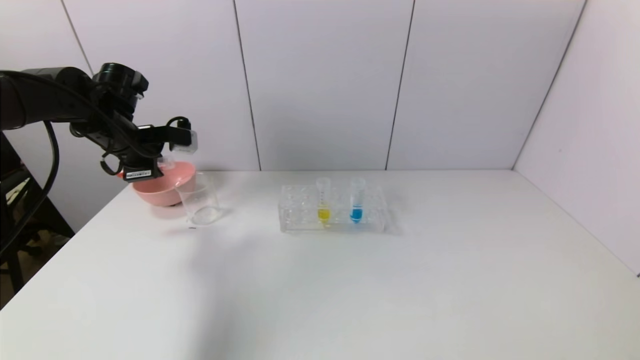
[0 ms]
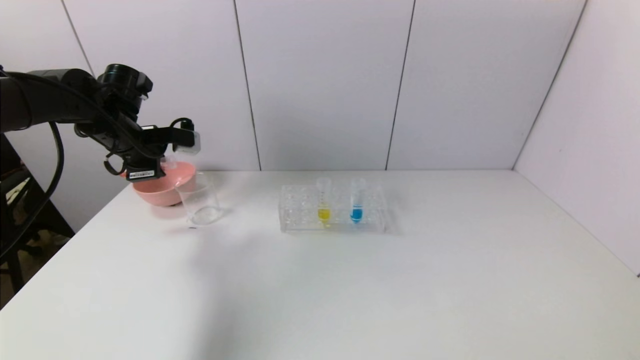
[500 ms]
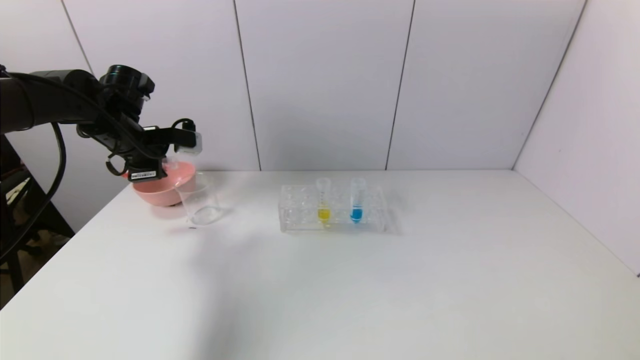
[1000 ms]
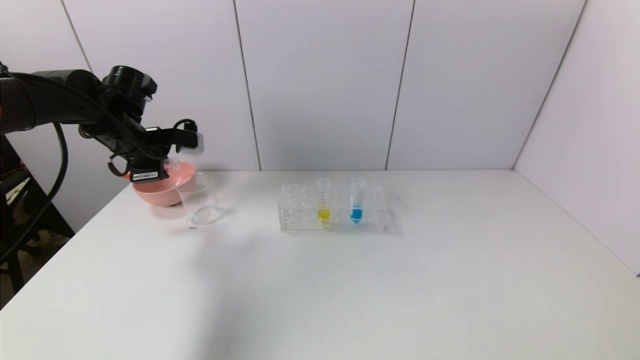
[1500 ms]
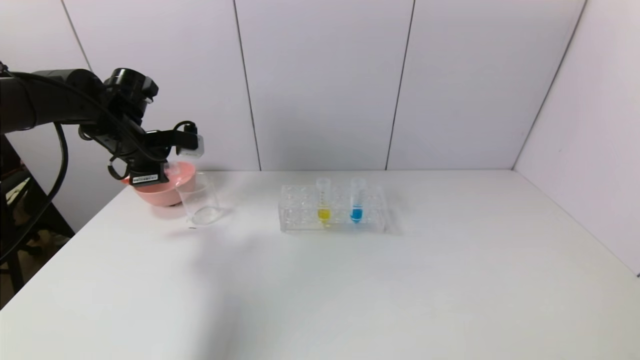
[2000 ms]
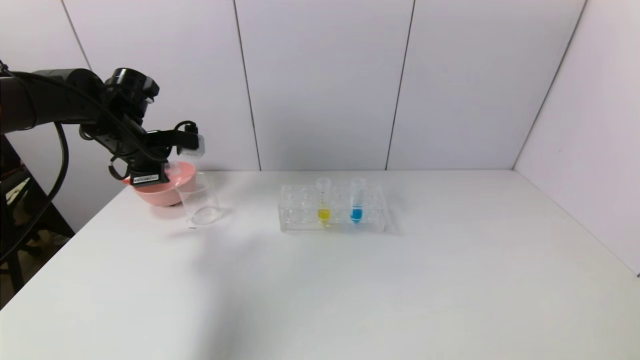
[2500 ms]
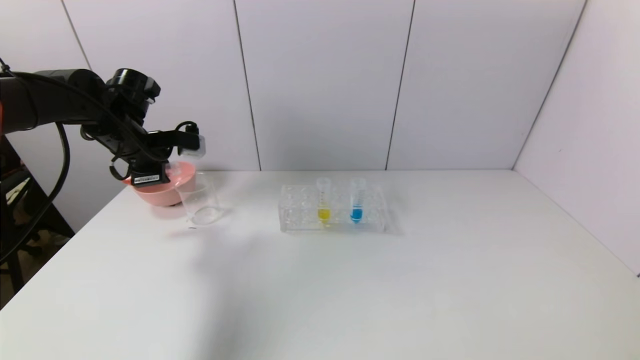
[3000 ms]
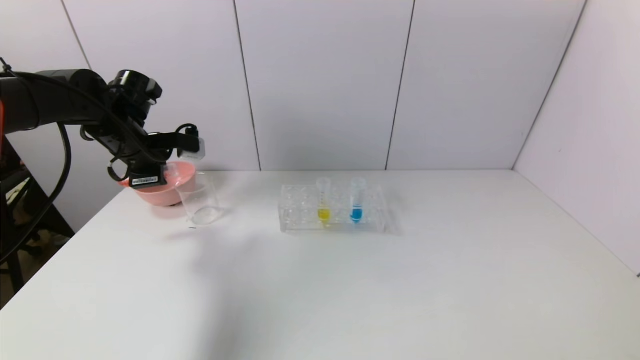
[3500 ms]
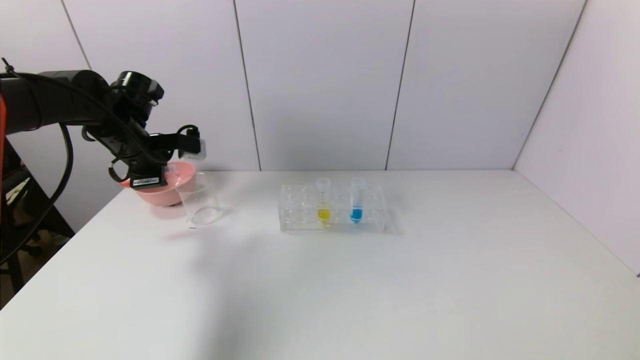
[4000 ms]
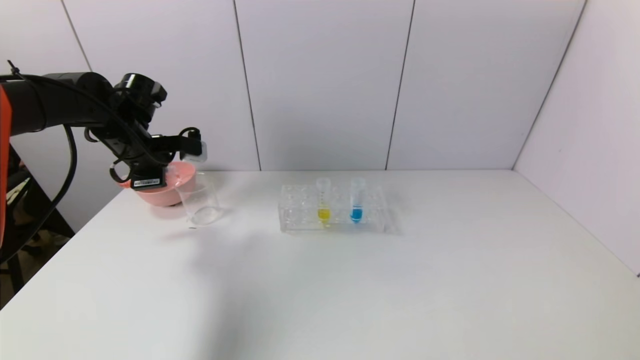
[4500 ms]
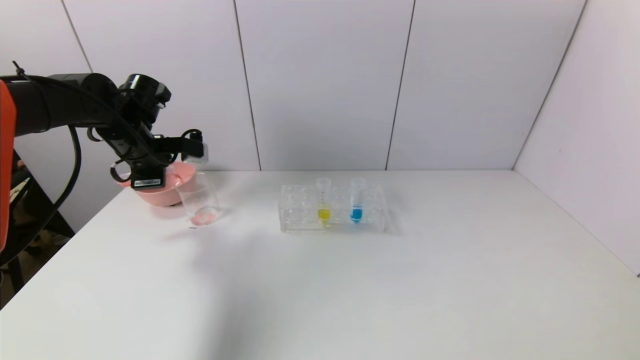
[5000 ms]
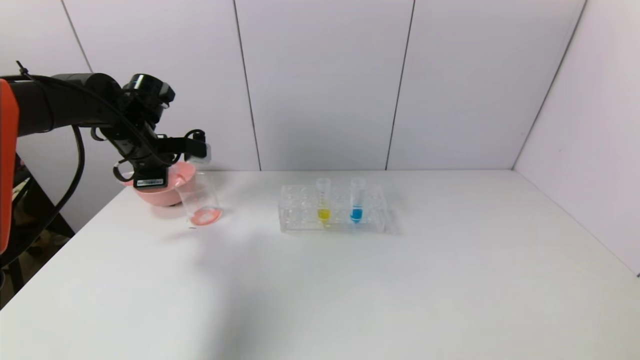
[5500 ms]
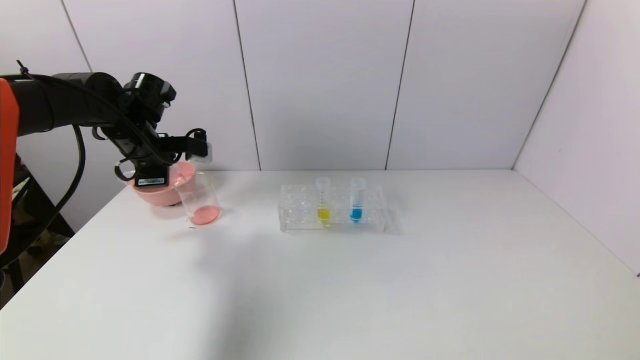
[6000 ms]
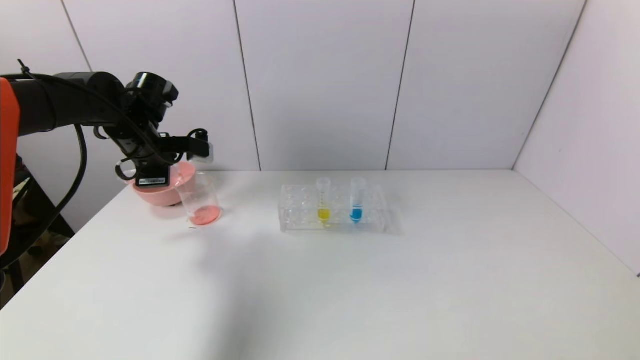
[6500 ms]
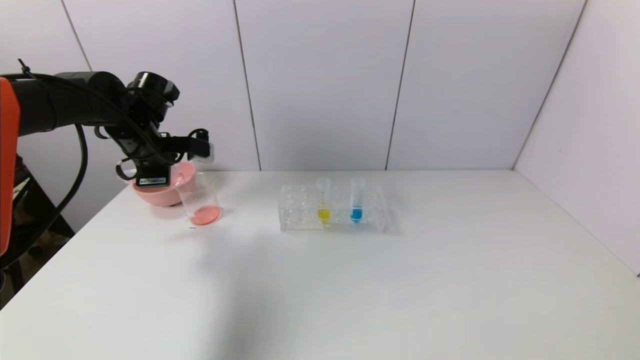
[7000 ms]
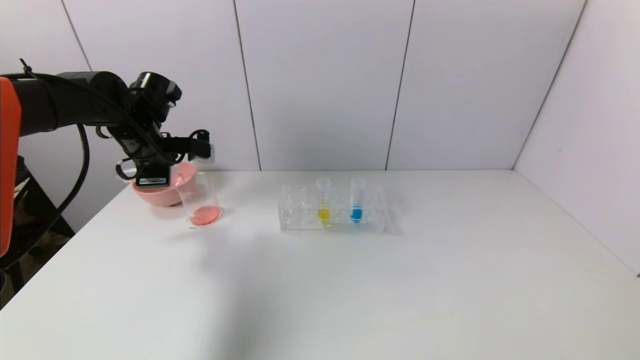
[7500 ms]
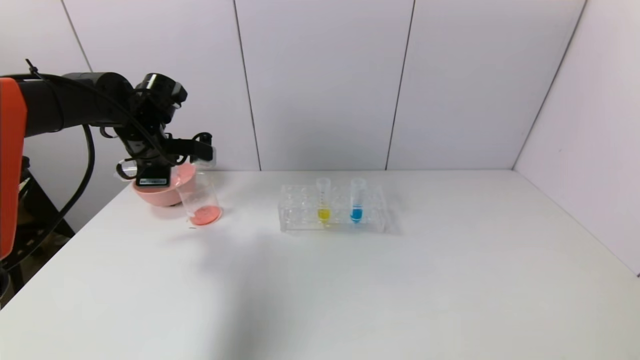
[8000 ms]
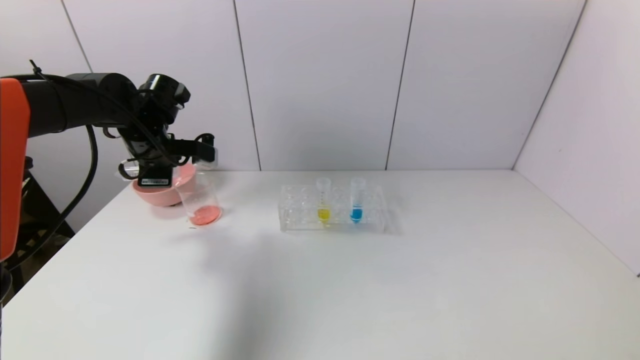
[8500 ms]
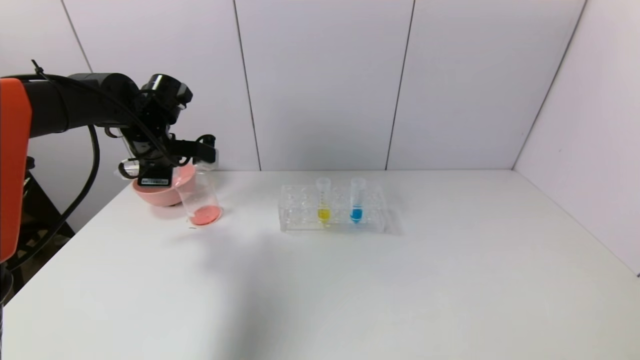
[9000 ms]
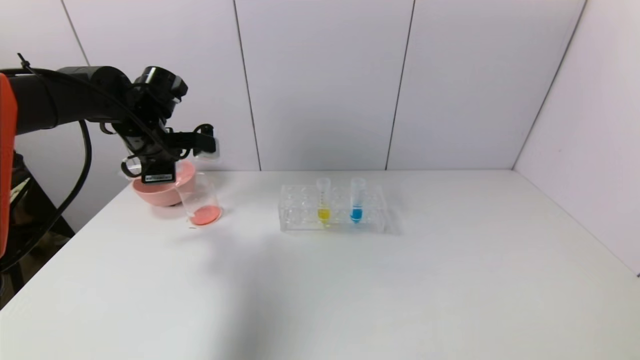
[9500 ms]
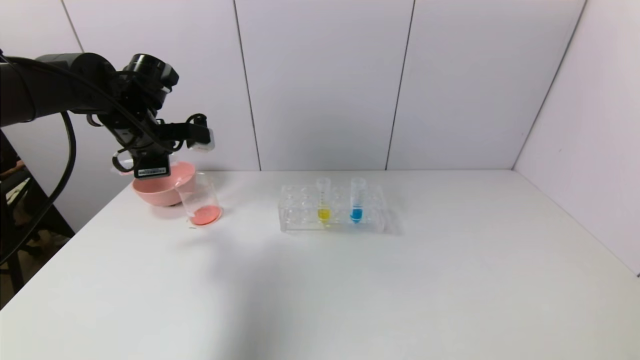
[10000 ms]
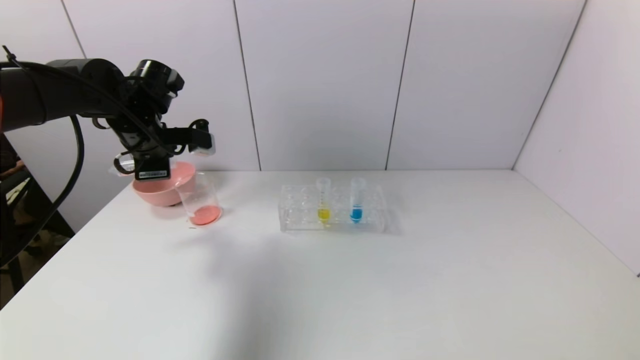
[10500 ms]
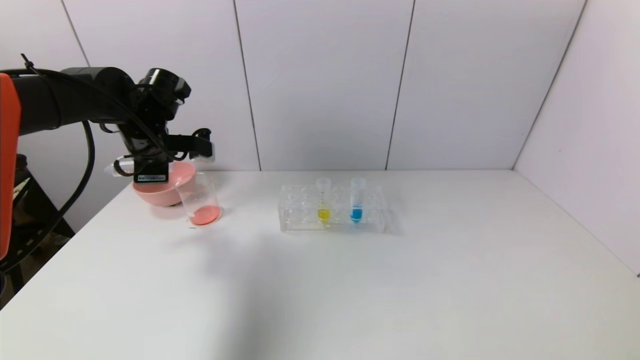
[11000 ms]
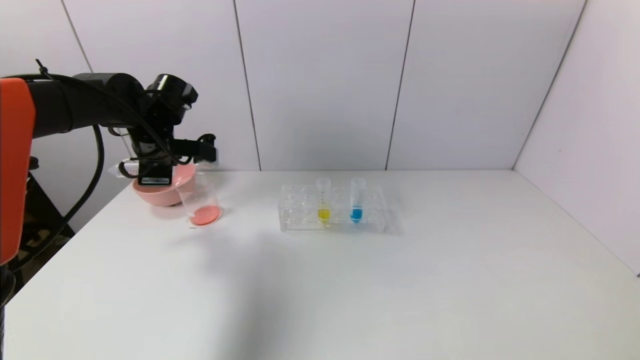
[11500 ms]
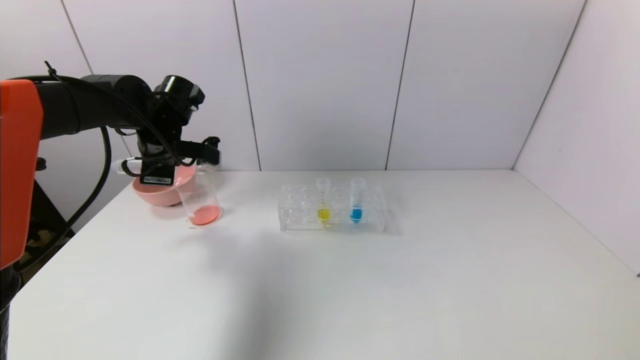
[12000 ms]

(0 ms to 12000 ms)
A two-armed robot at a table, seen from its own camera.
Task of the whole recording: pick up the test tube with red pigment and the test tube with blue pigment by grippers and pour them into the container.
0 ms - 2000 ms: The two grippers keep their place.
2000 ms - 4000 ms: Both grippers stay put.
4000 ms - 10000 ms: There are only small adjustments of the grippers.
10000 ms - 12000 ms: The grippers stay close to where they were, moving slightly.

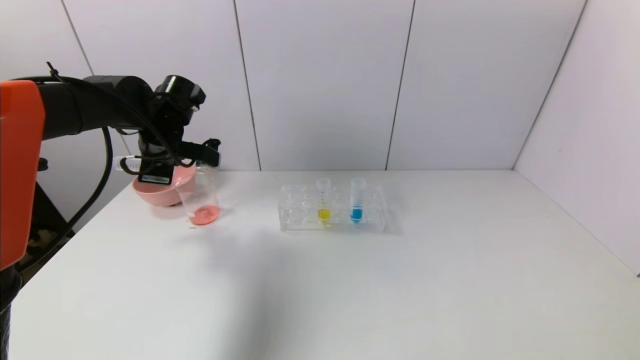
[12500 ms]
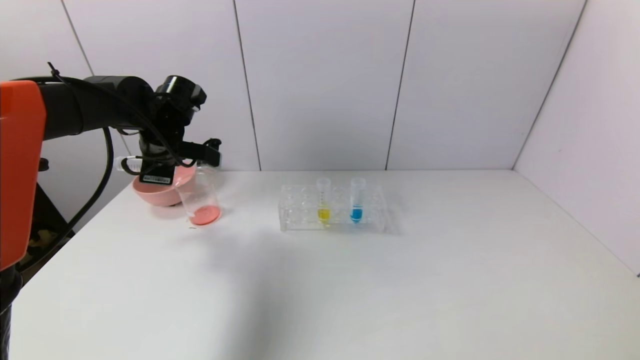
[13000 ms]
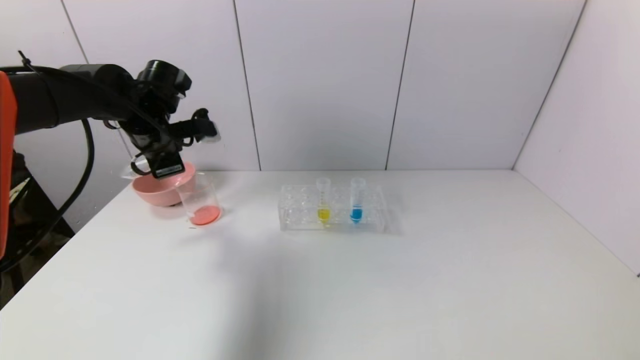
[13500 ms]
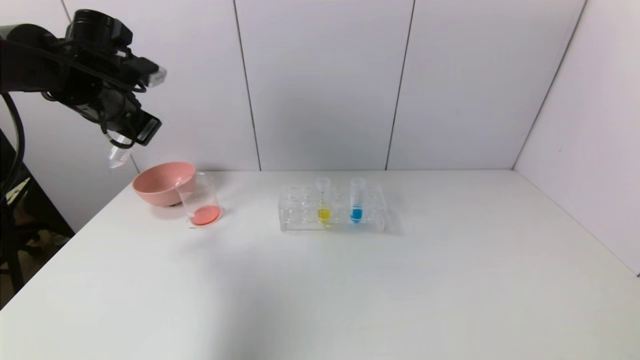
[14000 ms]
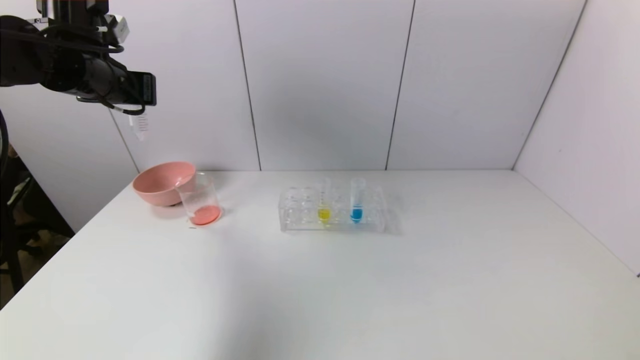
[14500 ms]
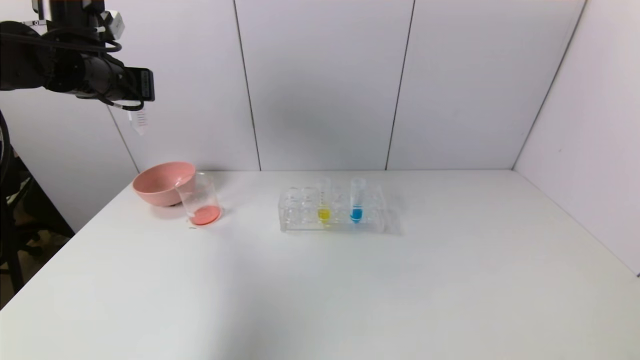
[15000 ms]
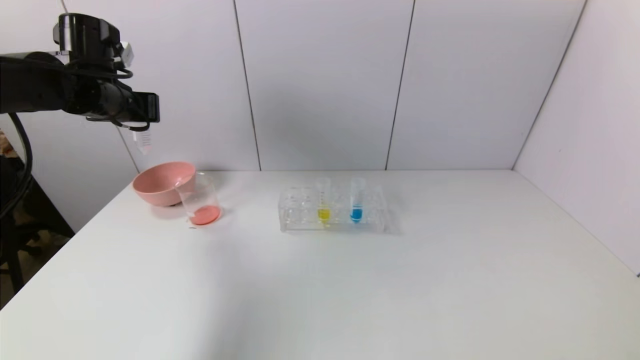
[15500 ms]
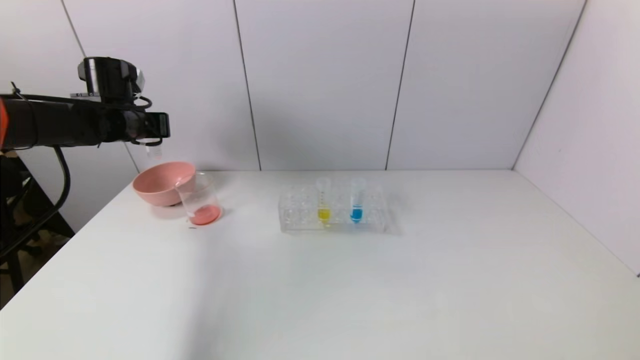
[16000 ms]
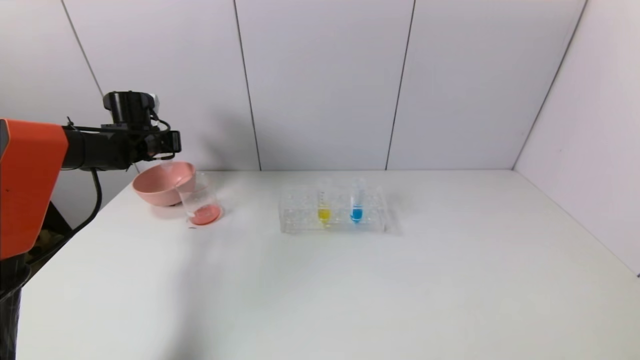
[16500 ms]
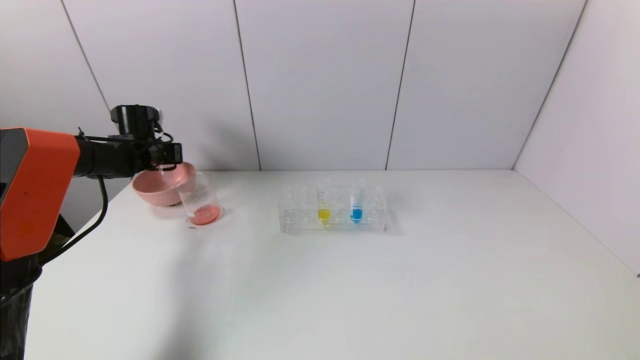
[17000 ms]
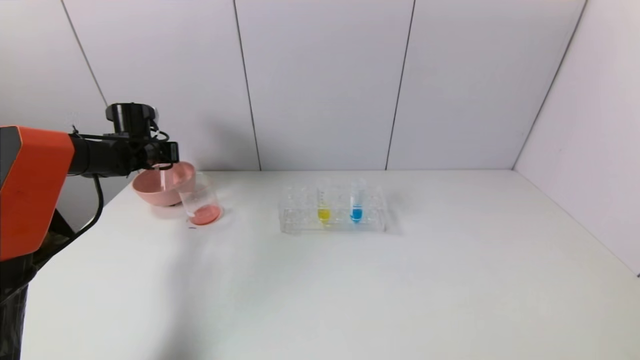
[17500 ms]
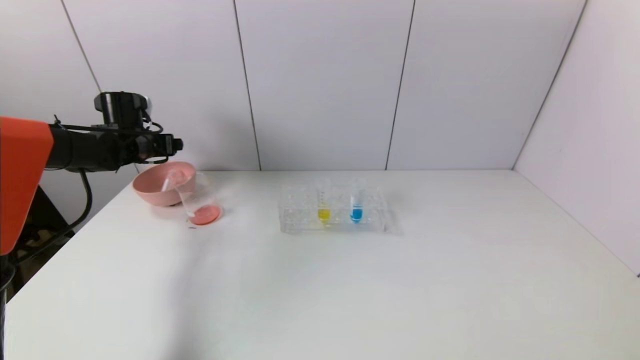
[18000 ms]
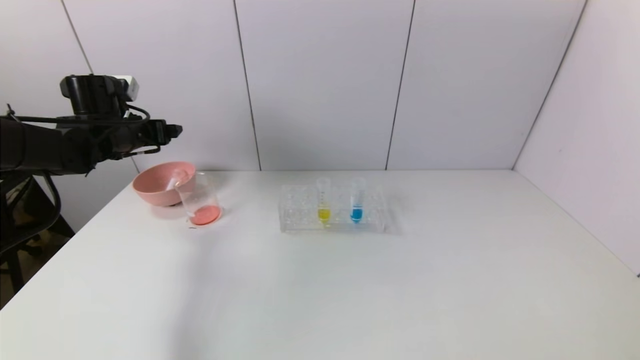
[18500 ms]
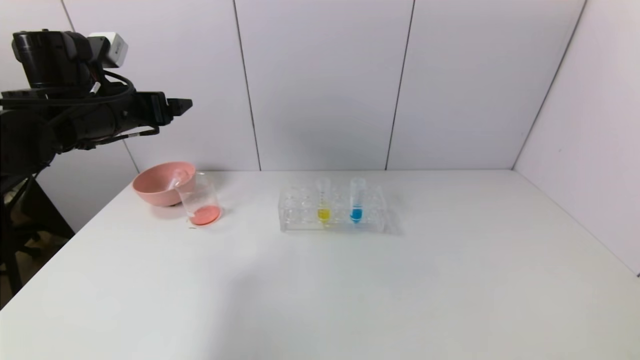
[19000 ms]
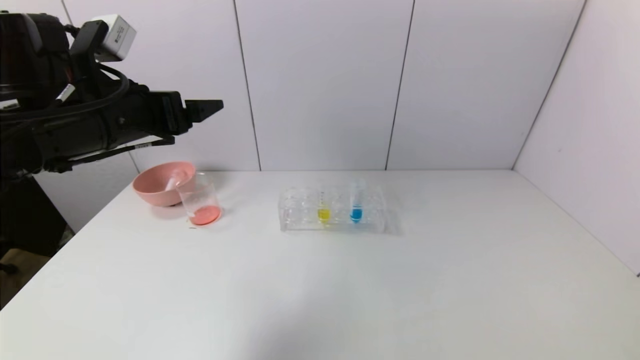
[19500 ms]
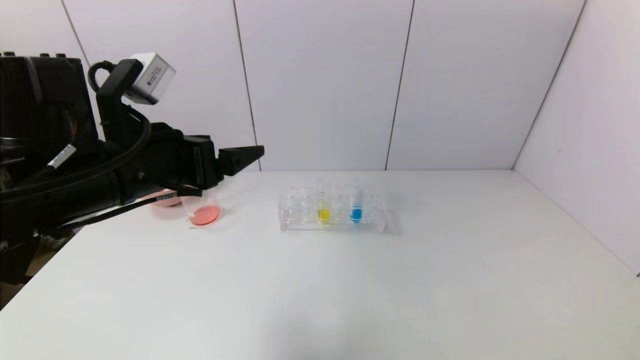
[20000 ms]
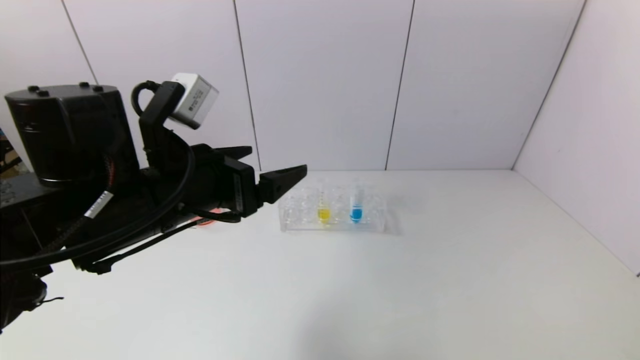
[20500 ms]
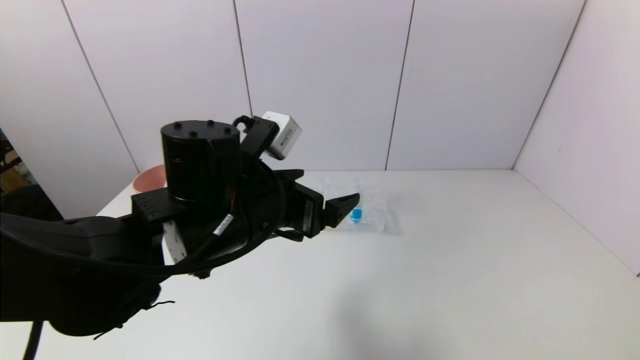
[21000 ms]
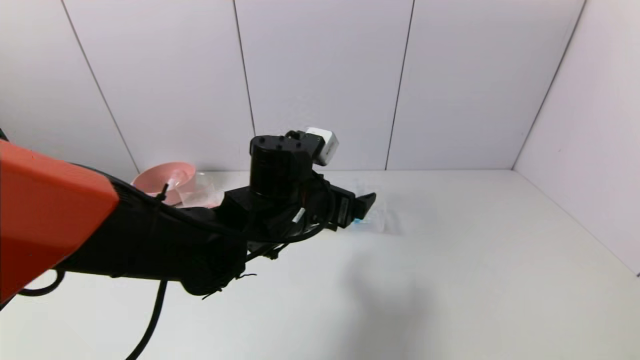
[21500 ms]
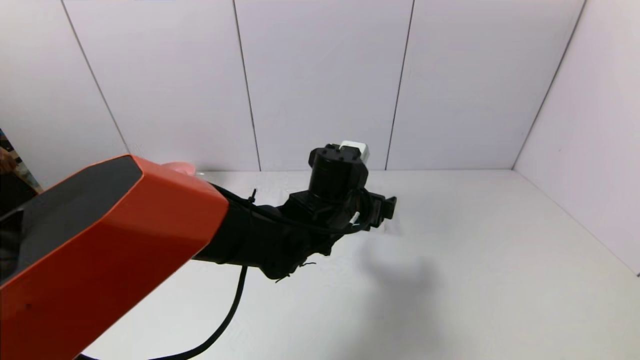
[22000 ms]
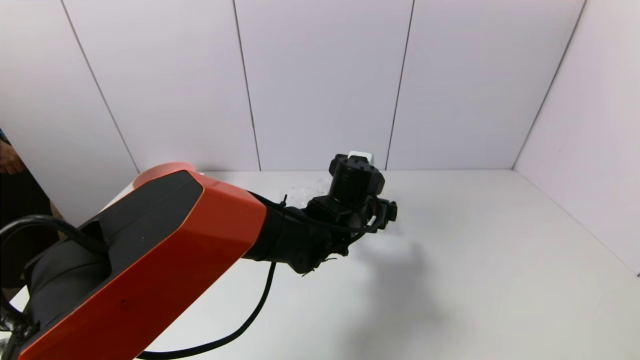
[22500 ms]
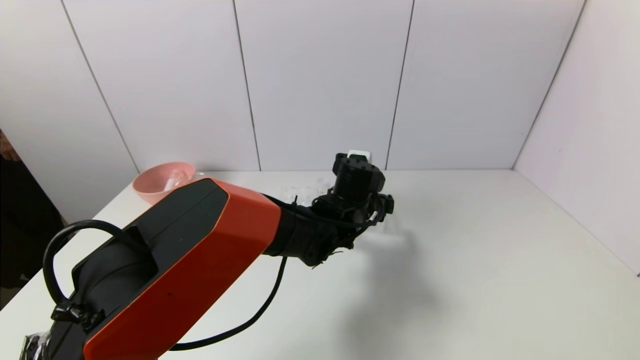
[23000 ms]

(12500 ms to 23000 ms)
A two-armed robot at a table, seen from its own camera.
Task of the whole recording: pick up the test tube with red pigment and the test tube with blue pigment by grippers and pour them into the container.
Step, 14000 ms - 18000 ms: Place the test tube into the bowl with the left gripper.
12500 ms - 14500 ms: The left gripper shifts some 10 cm upward.
14500 ms - 16500 ms: The left gripper heads downward and forward, covering about 20 cm.
16500 ms - 19000 ms: The left gripper shifts approximately 20 cm backward, upward and to the right, and opens.
19000 ms - 21000 ms: The left gripper goes about 20 cm to the right and backward.
21000 ms - 23000 ms: The left gripper shifts some 20 cm to the right, forward and downward.
